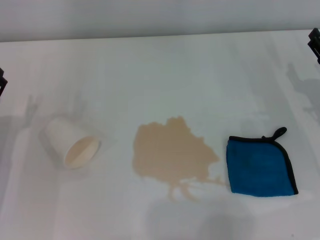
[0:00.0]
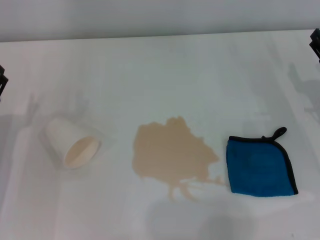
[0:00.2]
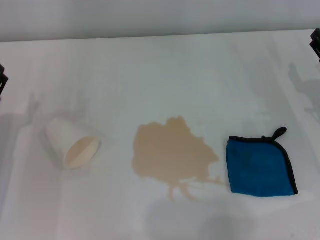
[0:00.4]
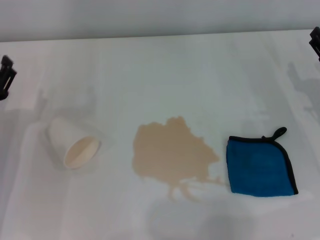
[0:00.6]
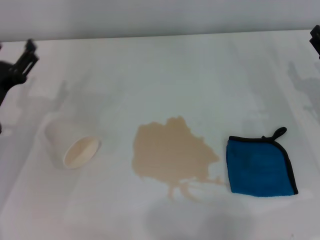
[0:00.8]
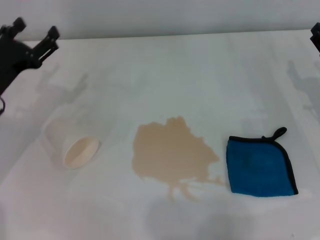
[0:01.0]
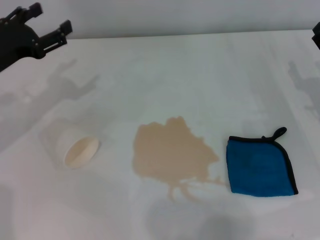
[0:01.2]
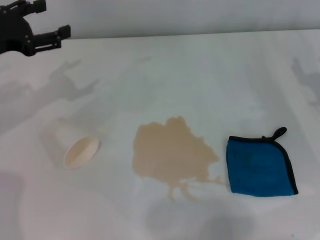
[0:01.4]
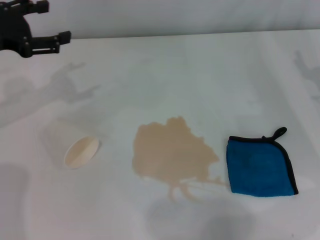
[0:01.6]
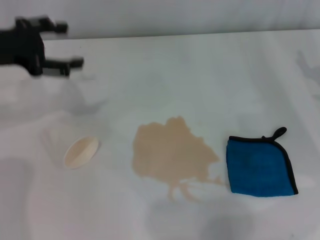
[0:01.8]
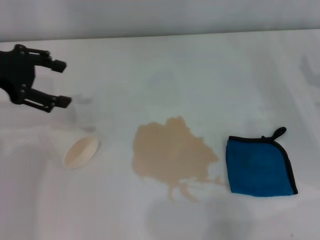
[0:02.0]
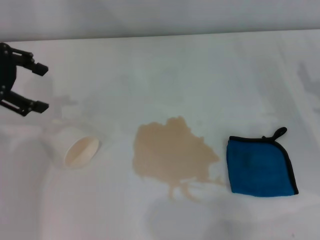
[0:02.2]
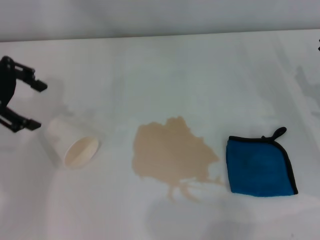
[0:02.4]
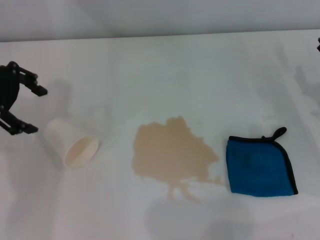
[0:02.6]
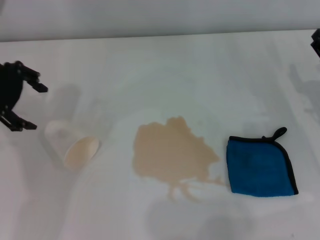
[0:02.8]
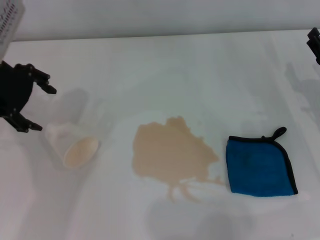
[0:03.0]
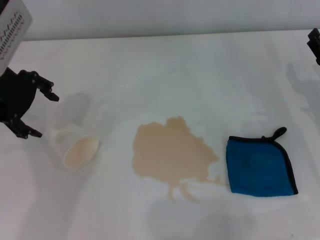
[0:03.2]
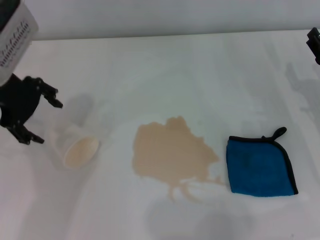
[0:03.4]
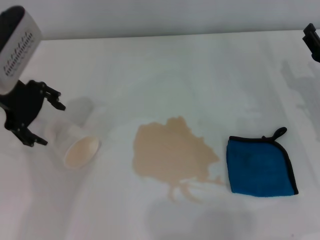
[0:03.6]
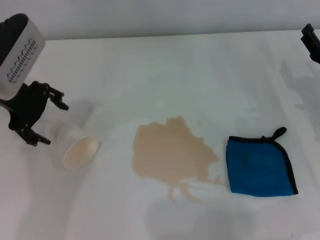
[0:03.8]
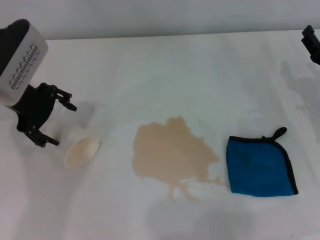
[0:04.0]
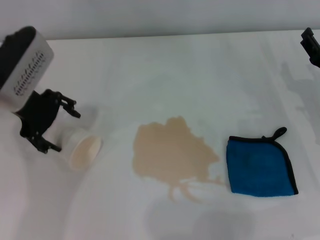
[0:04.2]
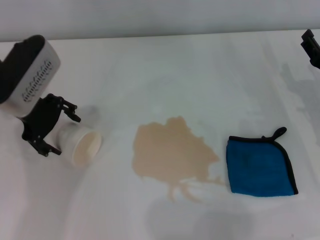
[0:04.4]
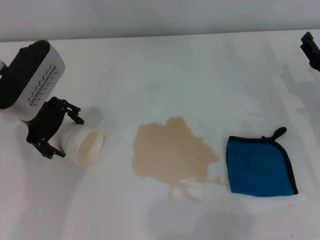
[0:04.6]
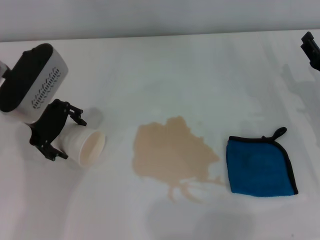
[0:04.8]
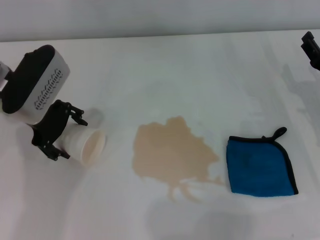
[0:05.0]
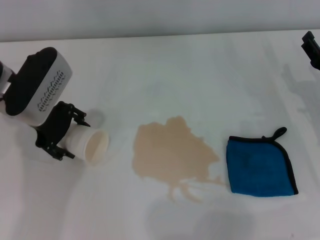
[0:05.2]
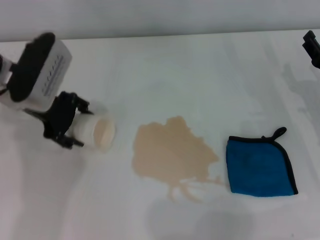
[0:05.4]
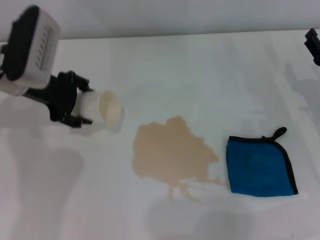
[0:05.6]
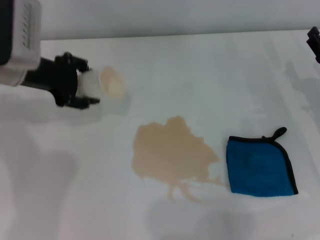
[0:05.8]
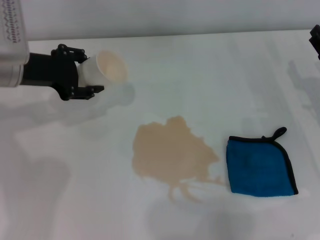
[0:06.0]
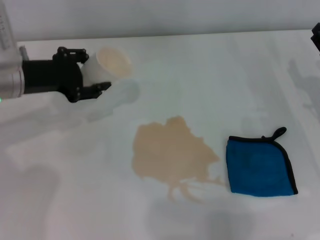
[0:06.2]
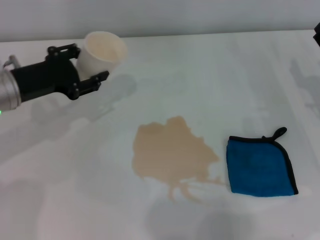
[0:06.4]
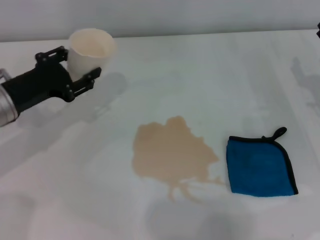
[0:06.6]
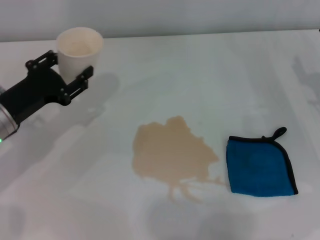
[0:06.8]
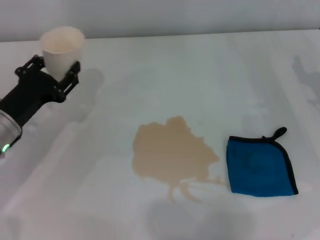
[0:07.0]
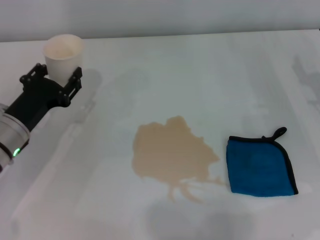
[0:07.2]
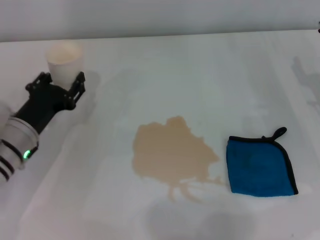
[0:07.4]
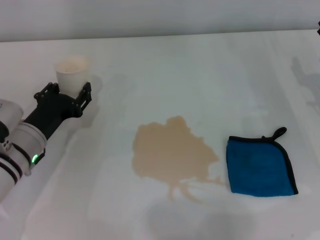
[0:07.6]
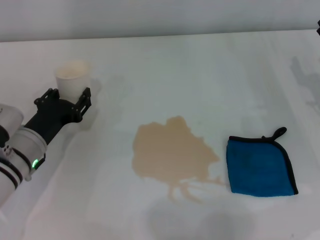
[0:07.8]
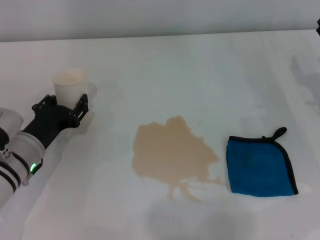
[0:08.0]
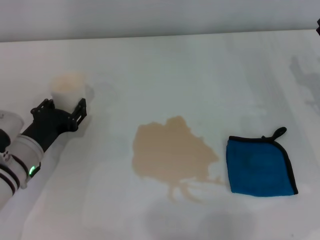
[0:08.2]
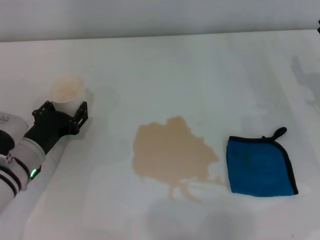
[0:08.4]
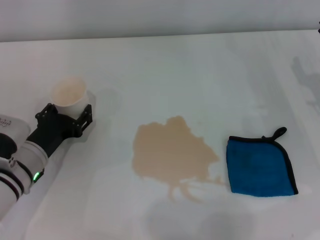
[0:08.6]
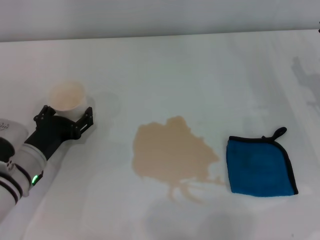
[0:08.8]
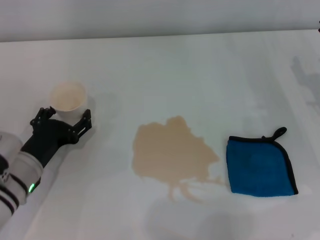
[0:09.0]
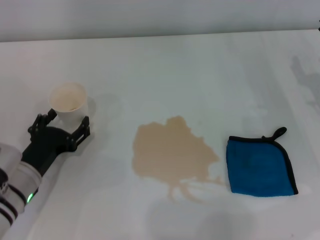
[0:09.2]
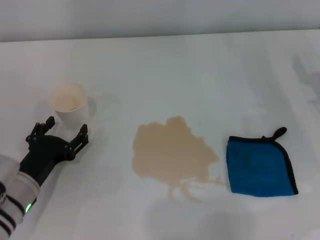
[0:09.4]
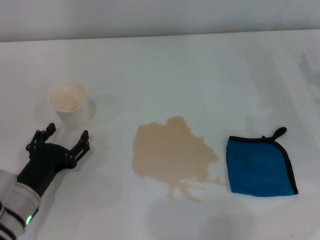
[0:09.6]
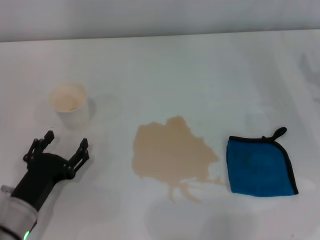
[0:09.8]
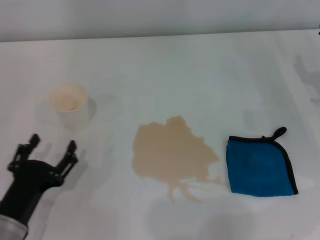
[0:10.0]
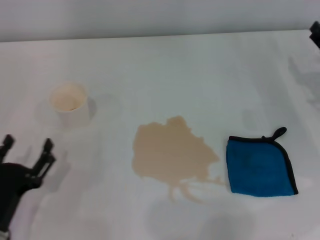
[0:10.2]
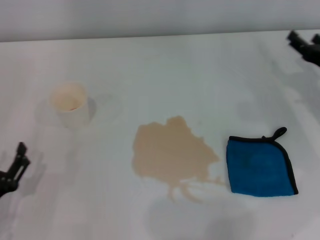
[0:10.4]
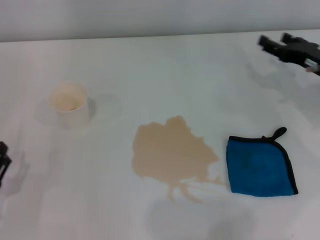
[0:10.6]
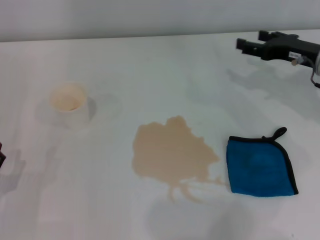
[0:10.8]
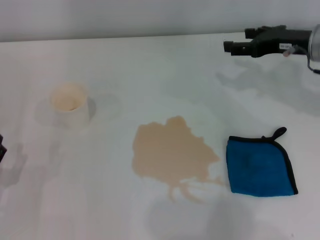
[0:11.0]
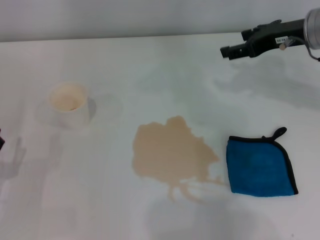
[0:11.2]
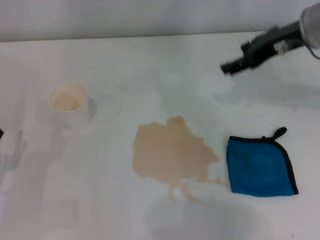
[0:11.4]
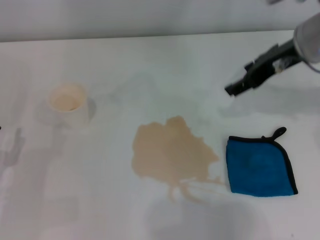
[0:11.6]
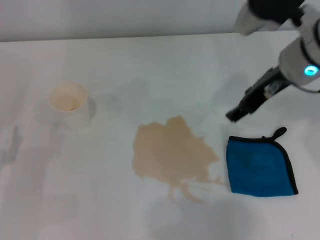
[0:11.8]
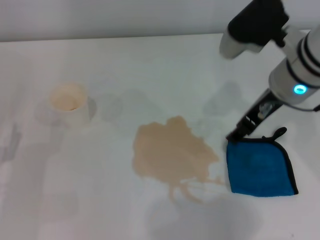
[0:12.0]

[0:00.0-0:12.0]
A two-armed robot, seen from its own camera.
Step, 0:00.0 to 0:05.2: Grasp the paper cup with the left gripper.
Step, 0:05.4 to 0:09.0: Stand the paper cup upright with the left gripper.
0:00.0 to 0:01.6: The left gripper is displaced upward and forward by about 20 cm.
0:01.6 to 0:03.0: The left gripper travels to the right by approximately 5 cm.
0:03.0 to 0:04.4: The left gripper heads downward, covering approximately 5 cm.
0:04.4 to 0:06.0: The left gripper closes.
0:06.0 to 0:07.6: The left gripper is displaced downward and backward by about 15 cm.
0:07.6 to 0:09.0: The left gripper opens up.
0:09.0 to 0:10.4: The left gripper heads backward and to the left, covering about 15 cm.
0:10.4 to 0:12.0: The left gripper moves forward, some 5 cm. Meanwhile the right gripper is displaced to the left and upward by some 20 cm.

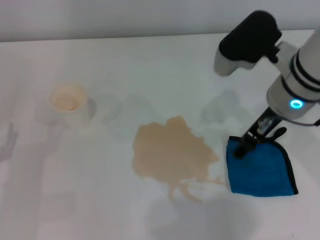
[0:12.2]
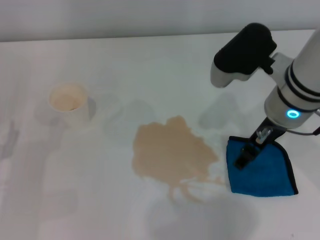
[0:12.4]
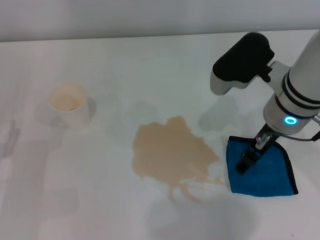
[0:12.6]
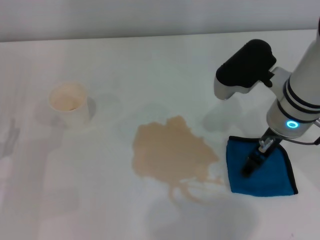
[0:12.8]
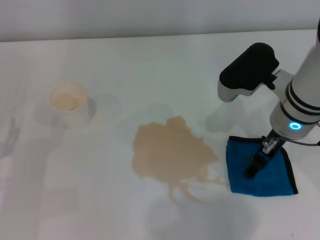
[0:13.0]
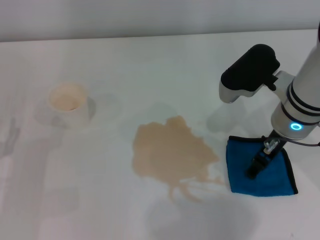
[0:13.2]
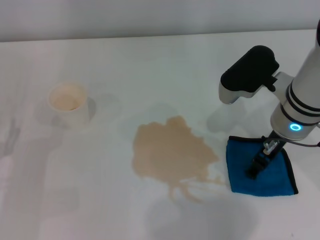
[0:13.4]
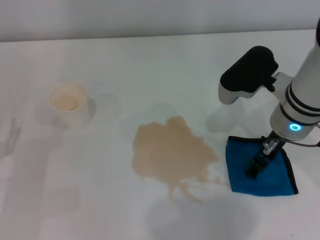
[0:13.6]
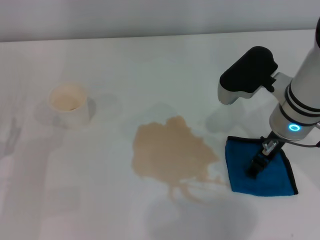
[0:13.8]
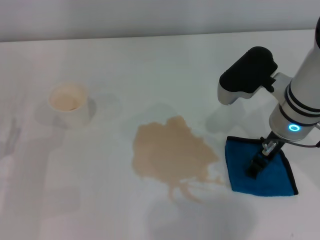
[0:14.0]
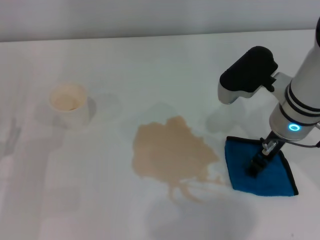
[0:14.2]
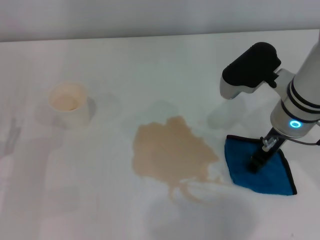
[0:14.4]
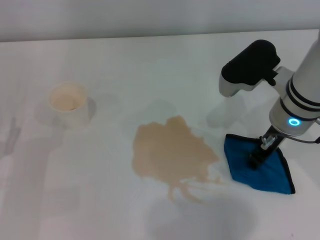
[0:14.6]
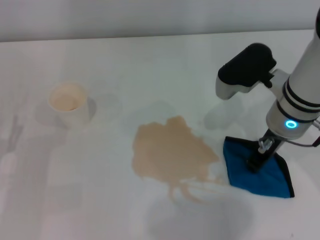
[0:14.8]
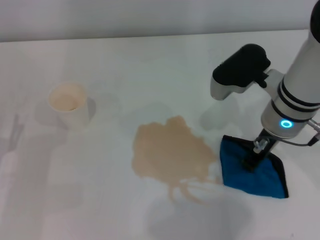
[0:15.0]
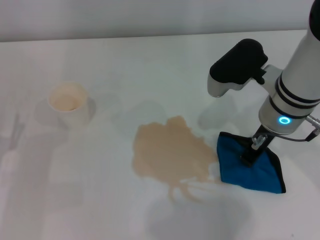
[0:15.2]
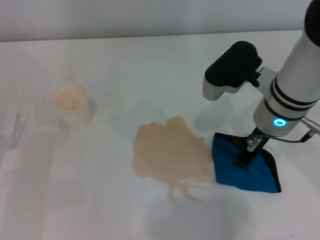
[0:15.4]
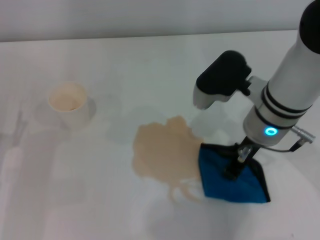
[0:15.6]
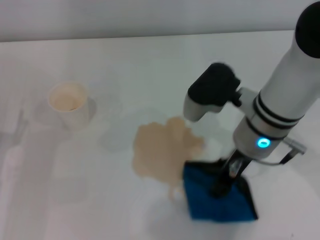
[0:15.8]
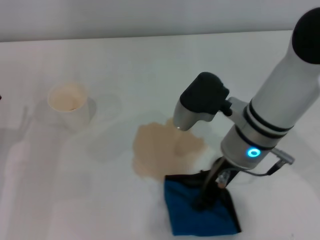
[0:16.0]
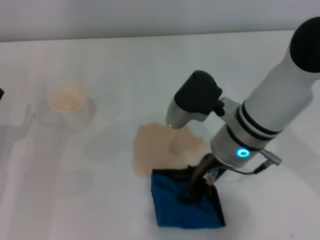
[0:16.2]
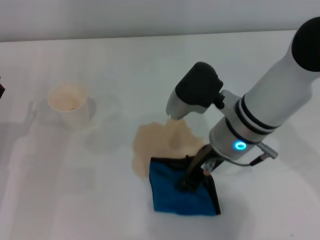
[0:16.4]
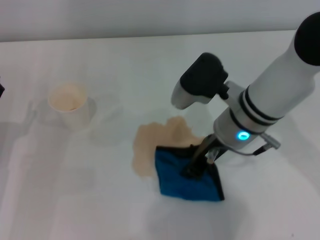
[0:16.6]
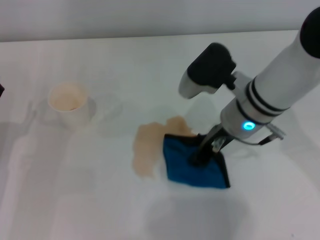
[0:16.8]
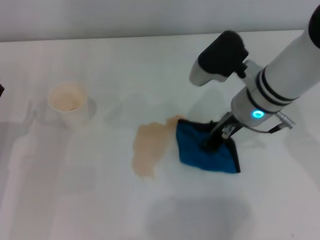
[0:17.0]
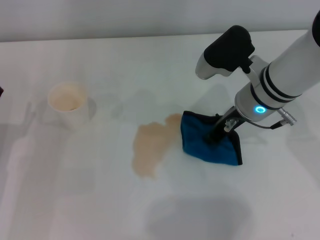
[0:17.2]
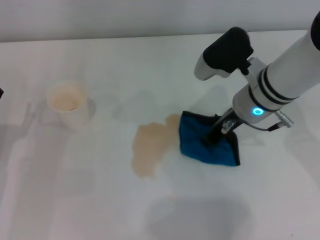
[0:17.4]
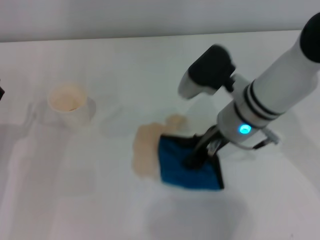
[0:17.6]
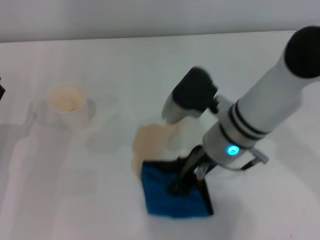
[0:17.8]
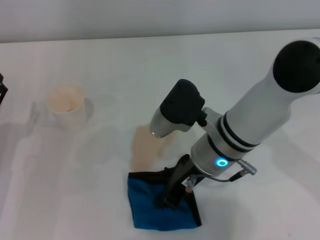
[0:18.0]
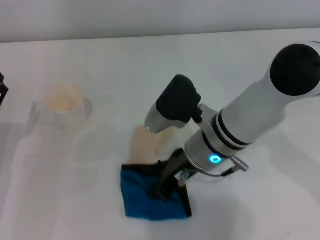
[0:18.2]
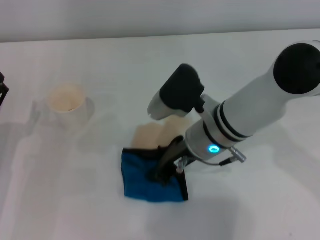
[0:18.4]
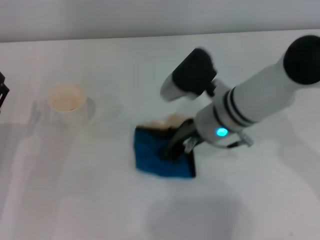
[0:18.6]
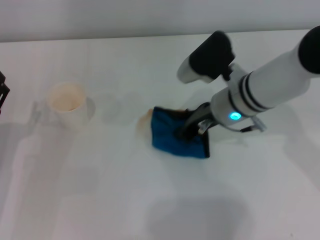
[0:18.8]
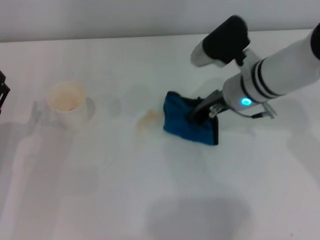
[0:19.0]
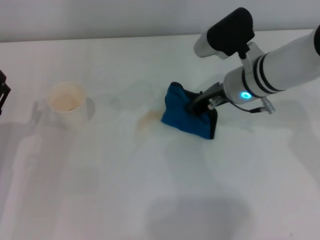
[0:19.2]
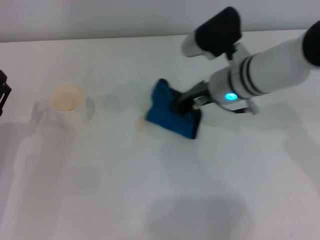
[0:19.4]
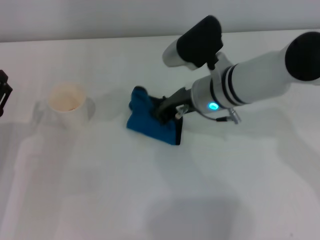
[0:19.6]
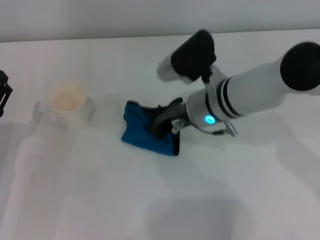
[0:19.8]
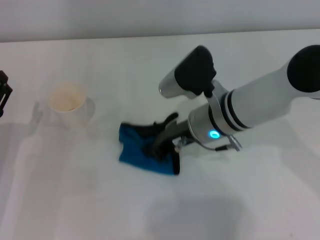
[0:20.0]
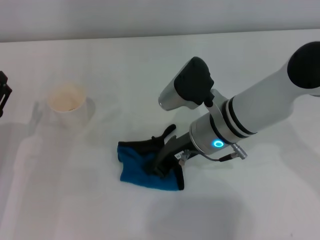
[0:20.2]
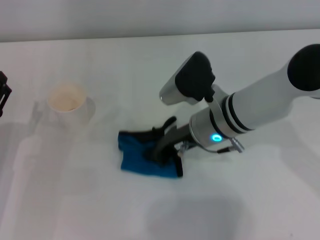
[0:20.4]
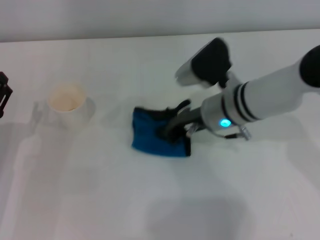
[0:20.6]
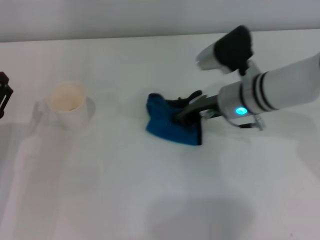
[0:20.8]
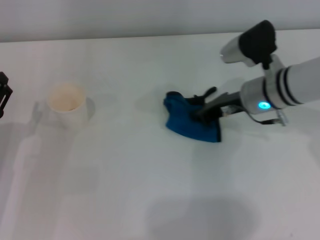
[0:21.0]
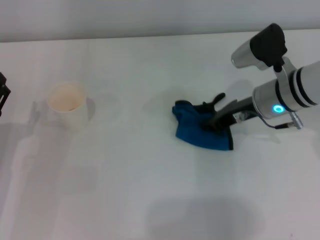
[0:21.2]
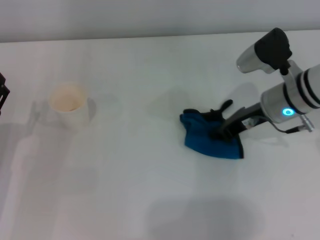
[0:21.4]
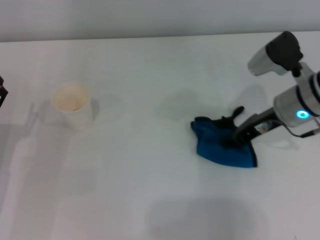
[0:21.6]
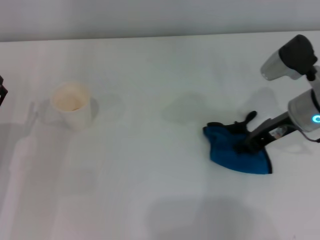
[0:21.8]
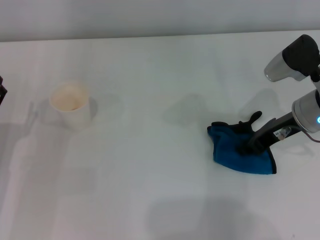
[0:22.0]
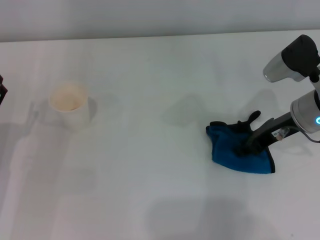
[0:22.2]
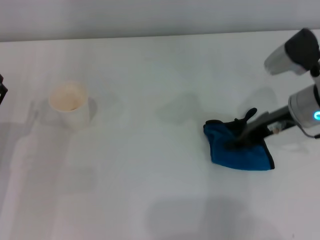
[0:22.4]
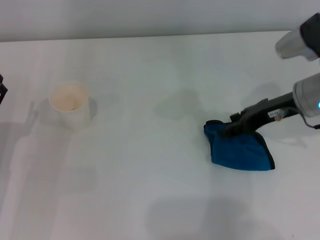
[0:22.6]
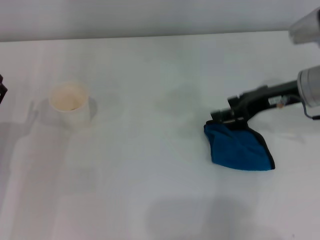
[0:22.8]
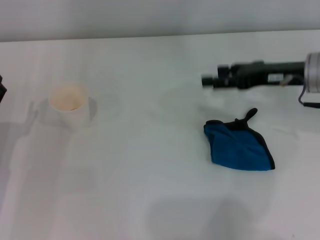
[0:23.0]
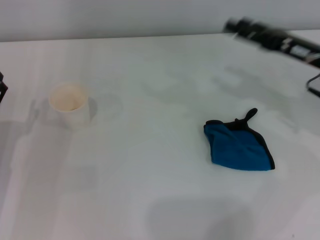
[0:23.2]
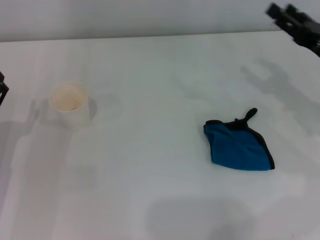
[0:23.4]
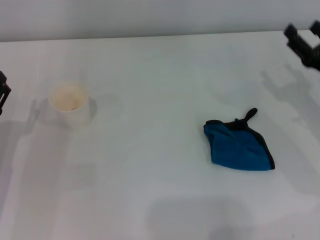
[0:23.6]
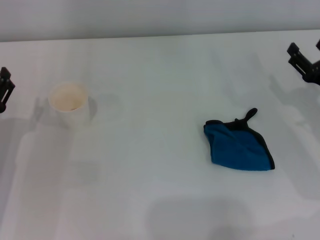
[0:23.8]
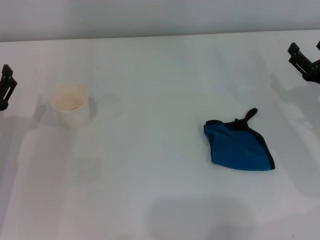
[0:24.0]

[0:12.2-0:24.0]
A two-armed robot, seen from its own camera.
Step, 0:12.2 to 0:14.6: Grasp the rag with the right gripper.
Step, 0:14.8 to 0:21.4: Wipe the stains off the table with the right gripper.
Step, 0:21.6 to 0:22.2: Place the rag on the table with the right gripper.
0:12.2 to 0:13.6: The grippers make only small movements.
0:13.6 to 0:15.2: The right gripper closes.
0:18.2 to 0:19.6: The right gripper is displaced forward by approximately 5 cm.
0:19.6 to 0:21.0: The right gripper travels to the right by approximately 10 cm.
0:21.0 to 0:22.6: The right gripper shifts some 5 cm to the right, and opens its fingers.
0:22.6 to 0:24.0: The right gripper shifts approximately 10 cm downward, to the right and backward, and opens.
